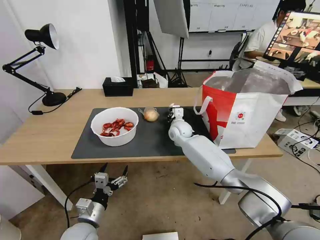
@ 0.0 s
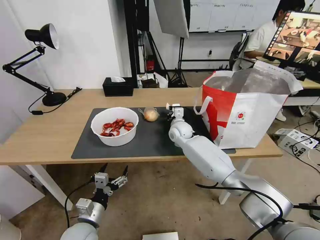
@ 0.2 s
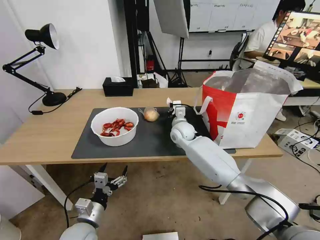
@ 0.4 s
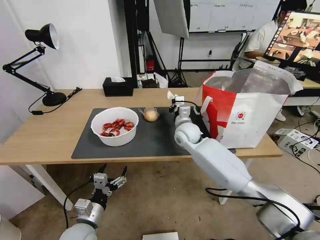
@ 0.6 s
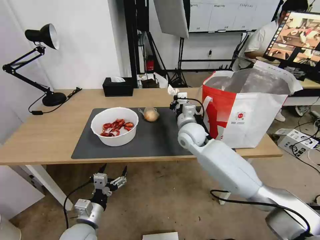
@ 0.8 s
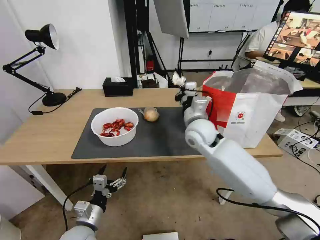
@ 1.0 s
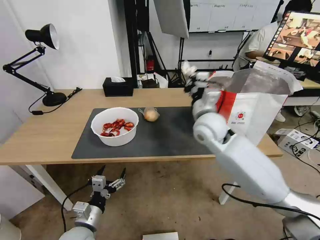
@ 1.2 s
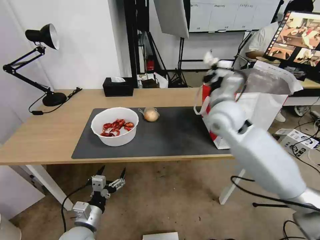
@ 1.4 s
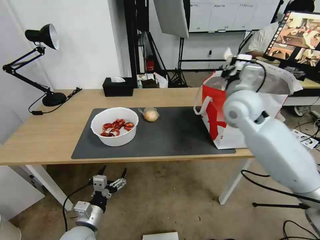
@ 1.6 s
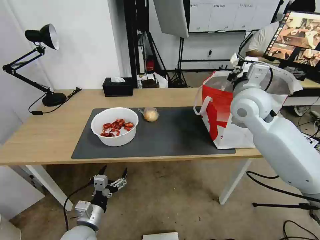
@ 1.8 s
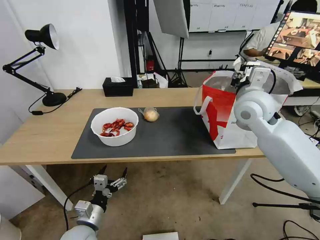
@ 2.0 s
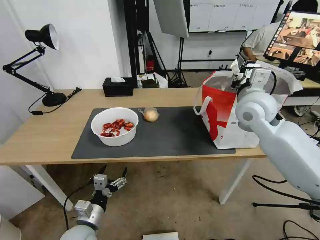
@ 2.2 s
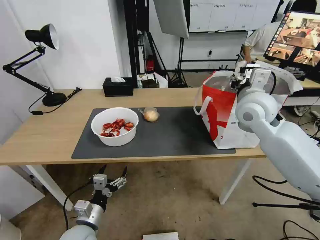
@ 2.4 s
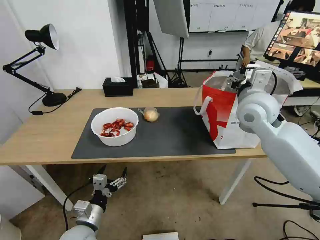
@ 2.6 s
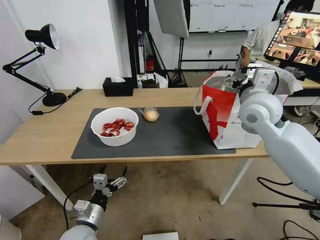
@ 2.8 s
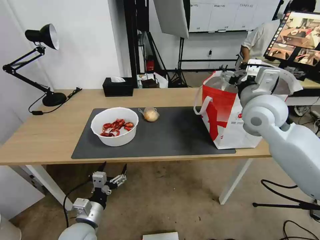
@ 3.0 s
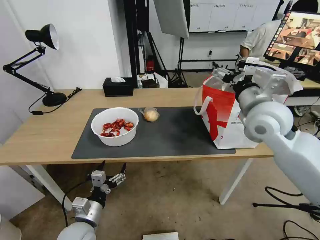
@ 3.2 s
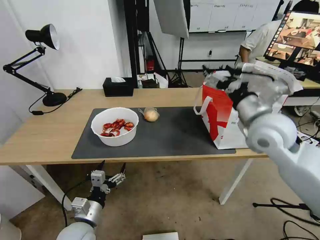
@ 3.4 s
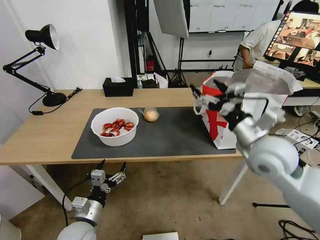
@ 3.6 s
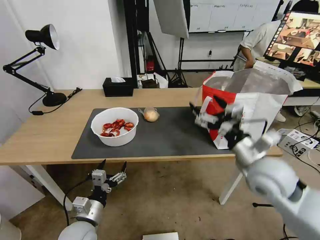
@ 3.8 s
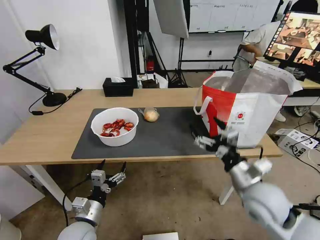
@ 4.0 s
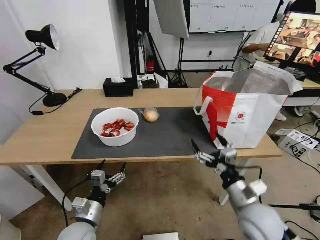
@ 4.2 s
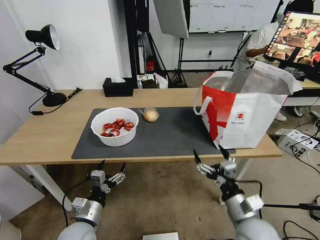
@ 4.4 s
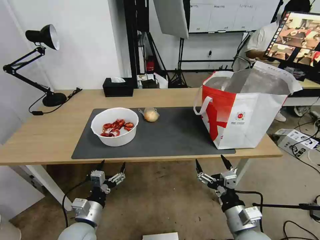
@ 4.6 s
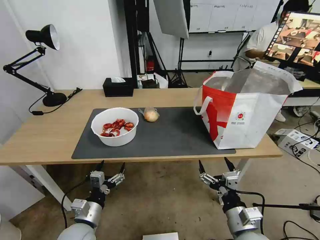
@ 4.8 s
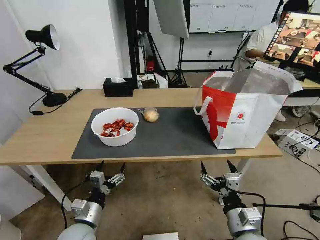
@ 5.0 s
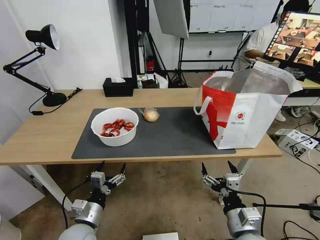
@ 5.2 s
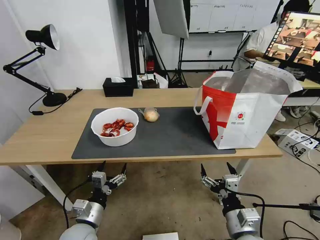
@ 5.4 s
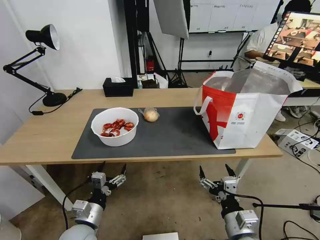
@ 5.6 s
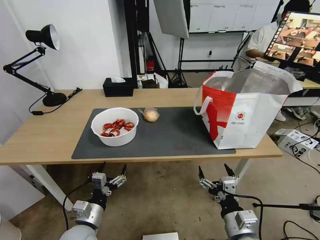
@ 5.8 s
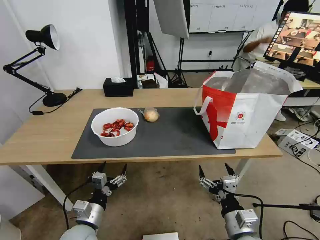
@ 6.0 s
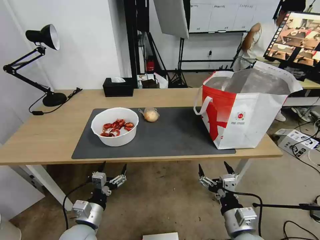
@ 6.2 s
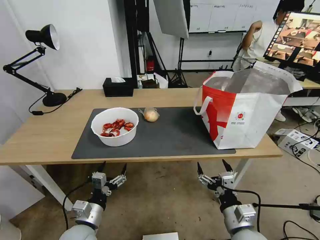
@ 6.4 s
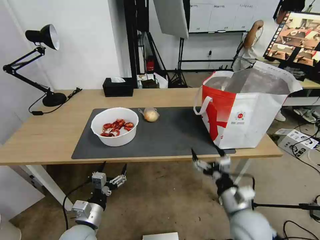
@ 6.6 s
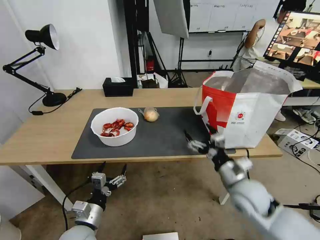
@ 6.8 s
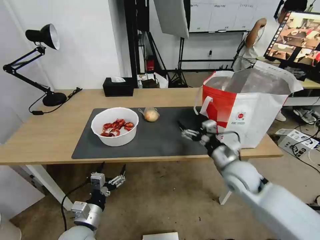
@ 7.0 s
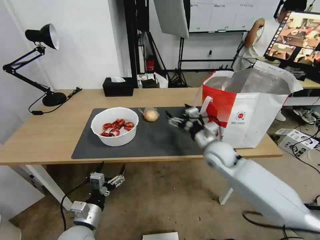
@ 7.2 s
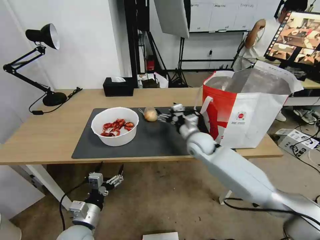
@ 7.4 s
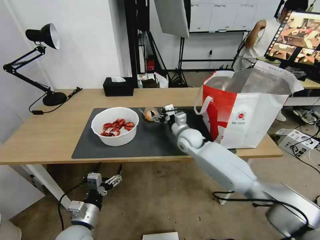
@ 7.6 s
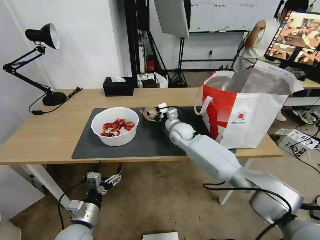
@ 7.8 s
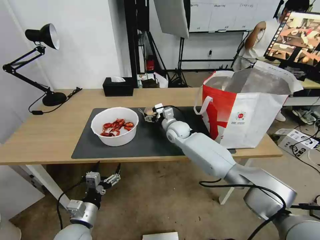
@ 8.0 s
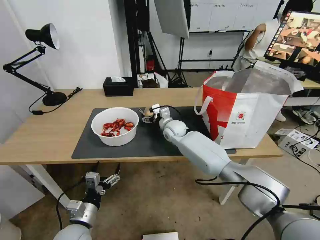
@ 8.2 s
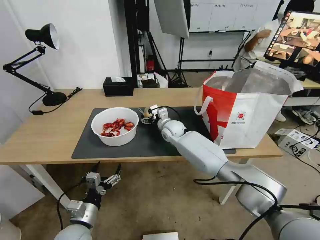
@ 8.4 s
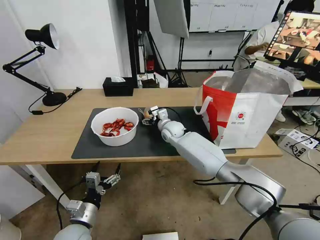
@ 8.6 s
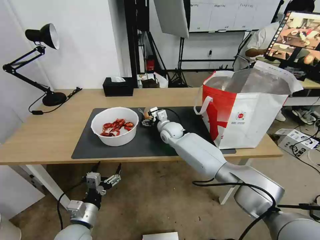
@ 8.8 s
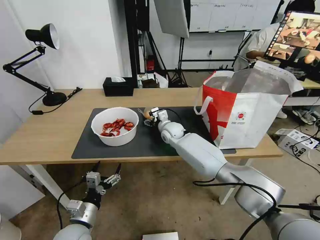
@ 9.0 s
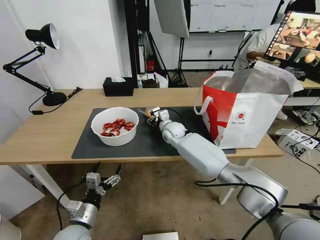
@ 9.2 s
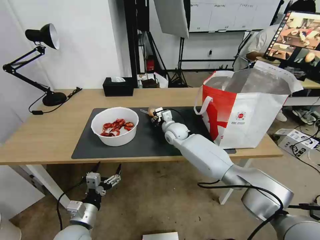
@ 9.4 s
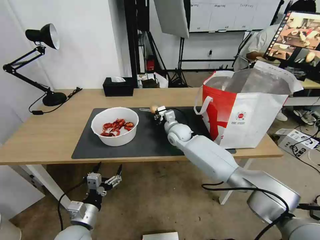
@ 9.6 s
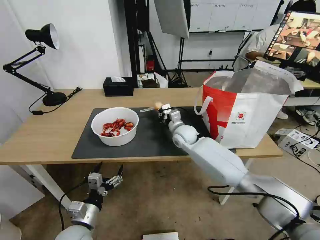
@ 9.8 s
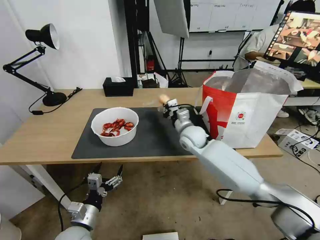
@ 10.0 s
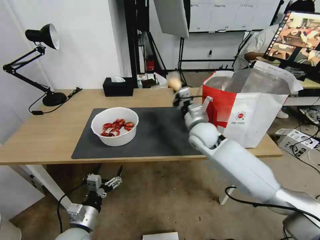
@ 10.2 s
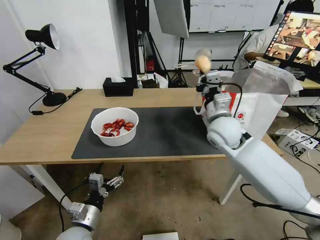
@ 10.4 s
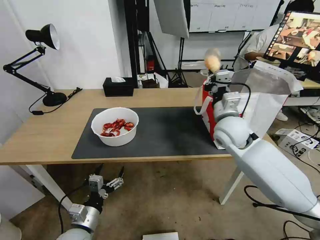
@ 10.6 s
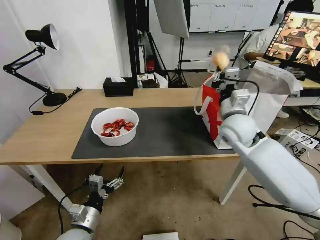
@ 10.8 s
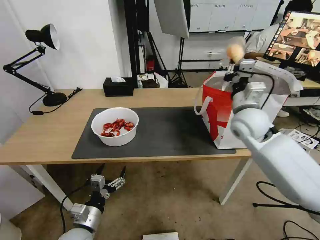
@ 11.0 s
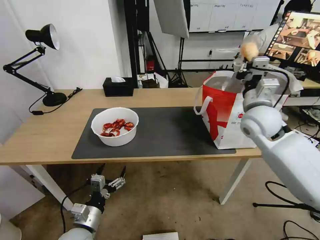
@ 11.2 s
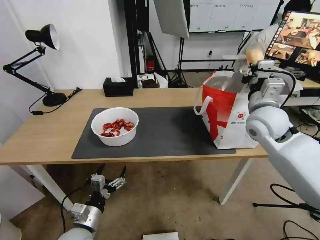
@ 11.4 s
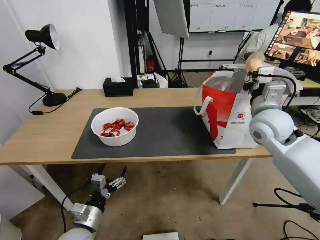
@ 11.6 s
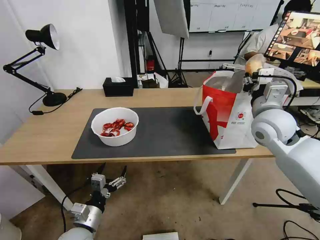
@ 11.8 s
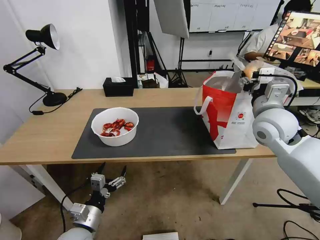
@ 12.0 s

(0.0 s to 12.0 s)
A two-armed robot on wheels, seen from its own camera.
Task of the whole recording: Pick up the trash from the table and place it into the takeout bag.
0.0 s - 1.6 s: The right gripper moves upward, to the right and backward, about 30 cm.
1.6 s - 3.0 s: The right gripper opens up.
3.0 s - 4.4 s: The right gripper shifts roughly 35 cm backward and downward.
4.4 s - 6.0 s: There are only small adjustments of the grippers.
6.0 s - 7.6 s: The right gripper goes some 35 cm forward.
7.6 s - 9.0 s: The right gripper is displaced to the left and forward by roughly 10 cm.
9.0 s - 10.4 s: The right gripper travels upward, backward and to the right by roughly 20 cm, and closes up.
10.4 s - 12.0 s: The right gripper shifts approximately 15 cm to the right and upward, and opens up.

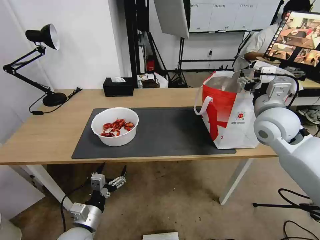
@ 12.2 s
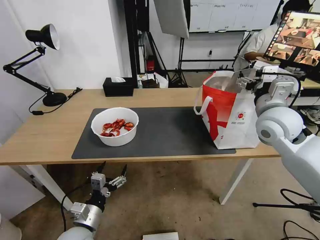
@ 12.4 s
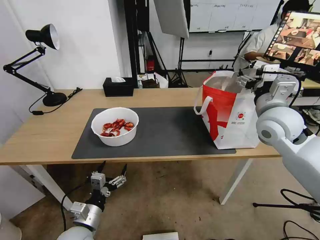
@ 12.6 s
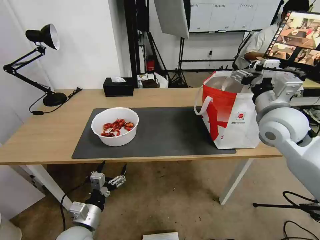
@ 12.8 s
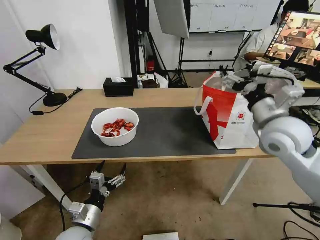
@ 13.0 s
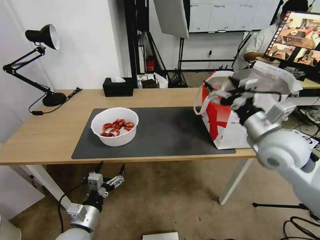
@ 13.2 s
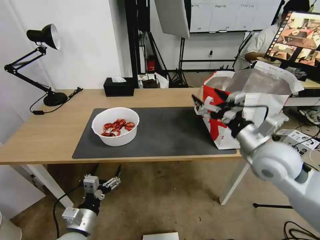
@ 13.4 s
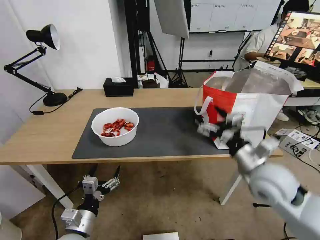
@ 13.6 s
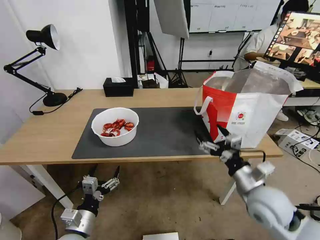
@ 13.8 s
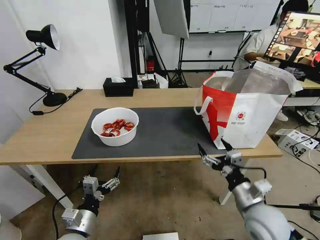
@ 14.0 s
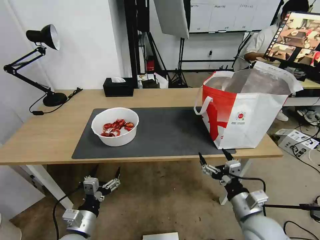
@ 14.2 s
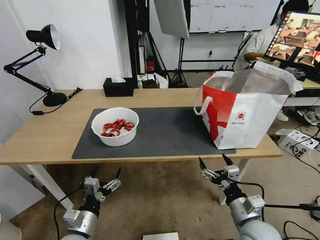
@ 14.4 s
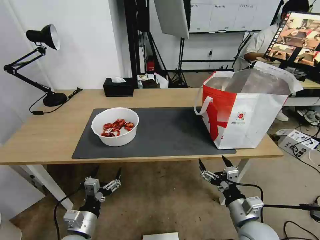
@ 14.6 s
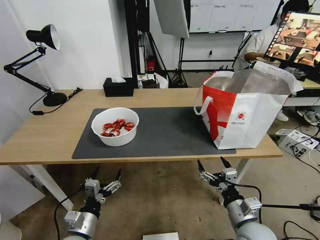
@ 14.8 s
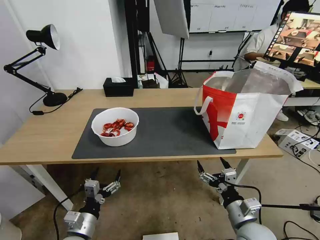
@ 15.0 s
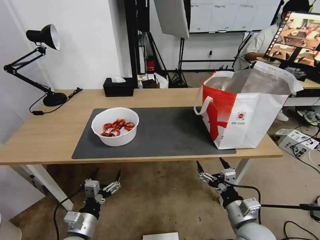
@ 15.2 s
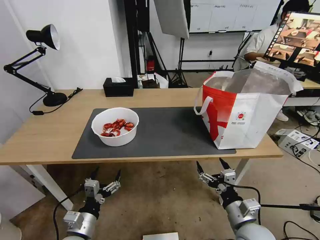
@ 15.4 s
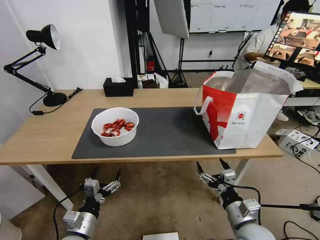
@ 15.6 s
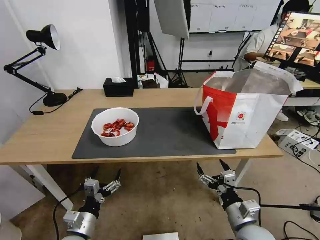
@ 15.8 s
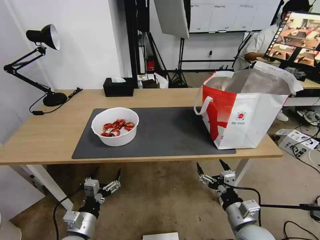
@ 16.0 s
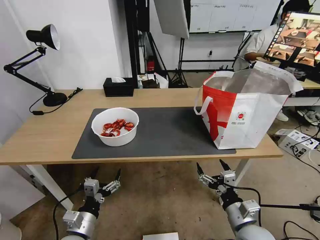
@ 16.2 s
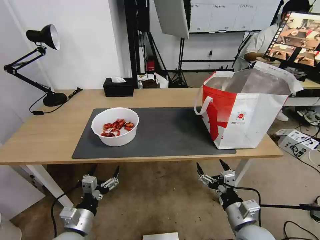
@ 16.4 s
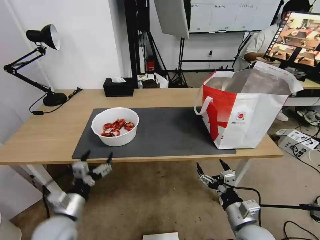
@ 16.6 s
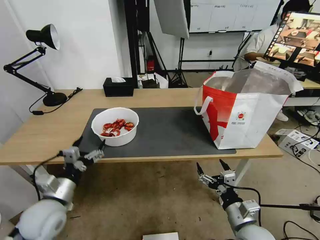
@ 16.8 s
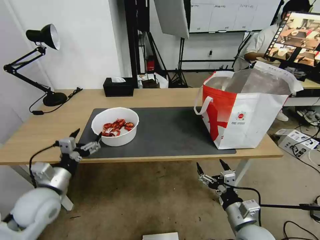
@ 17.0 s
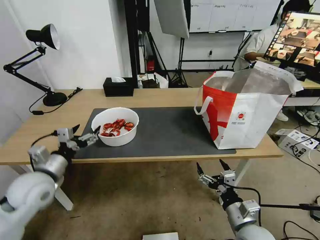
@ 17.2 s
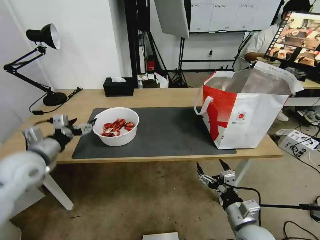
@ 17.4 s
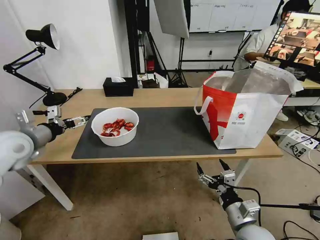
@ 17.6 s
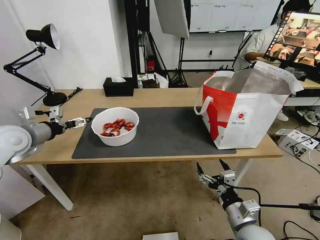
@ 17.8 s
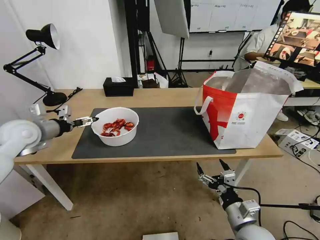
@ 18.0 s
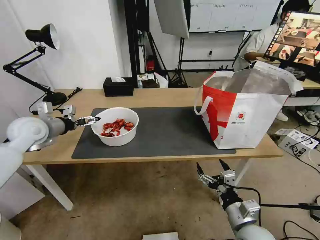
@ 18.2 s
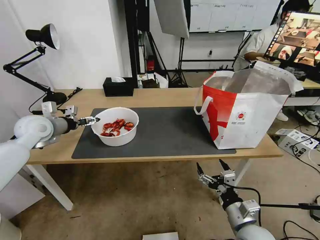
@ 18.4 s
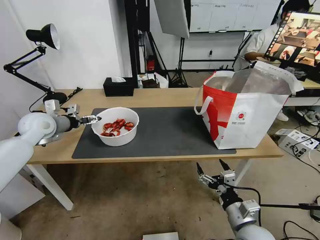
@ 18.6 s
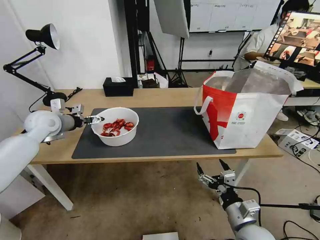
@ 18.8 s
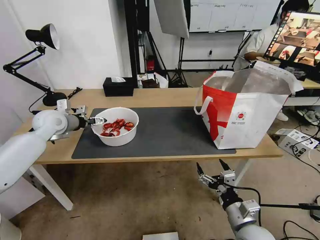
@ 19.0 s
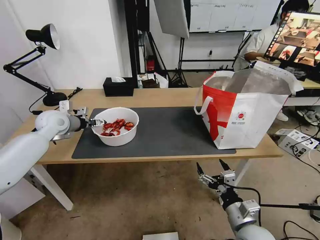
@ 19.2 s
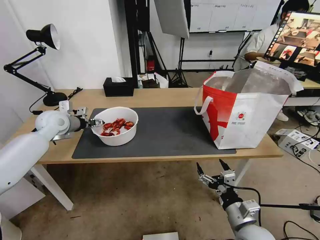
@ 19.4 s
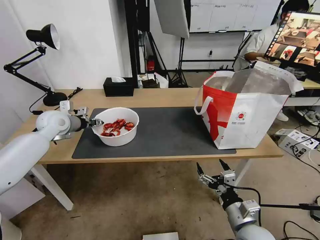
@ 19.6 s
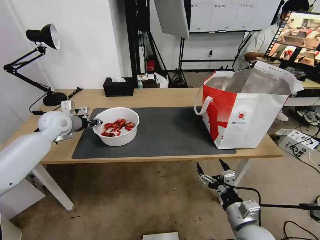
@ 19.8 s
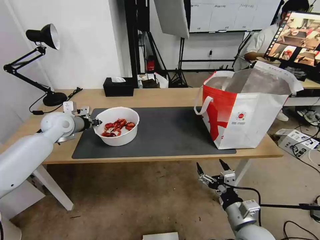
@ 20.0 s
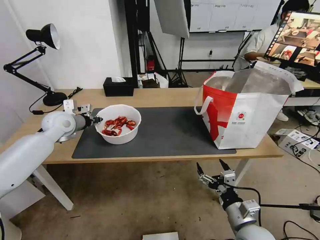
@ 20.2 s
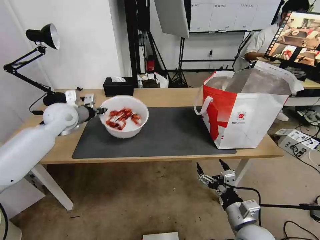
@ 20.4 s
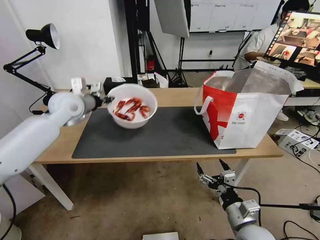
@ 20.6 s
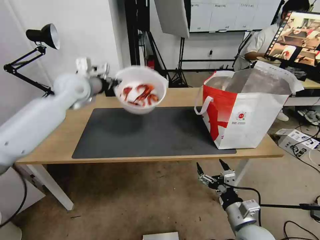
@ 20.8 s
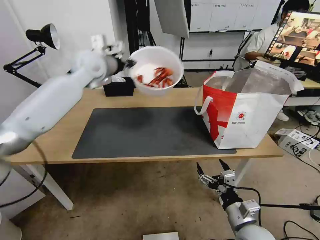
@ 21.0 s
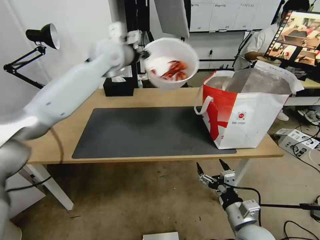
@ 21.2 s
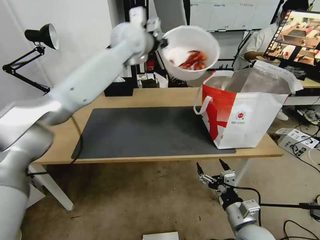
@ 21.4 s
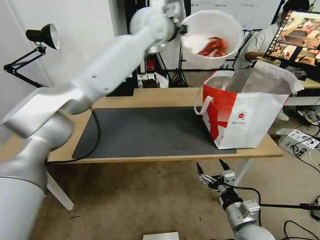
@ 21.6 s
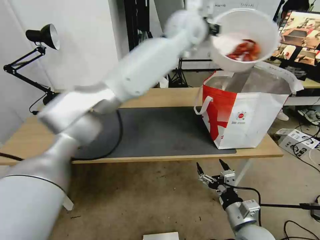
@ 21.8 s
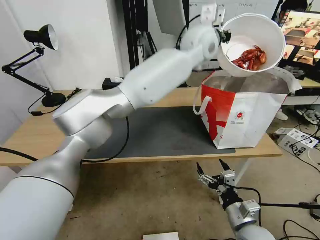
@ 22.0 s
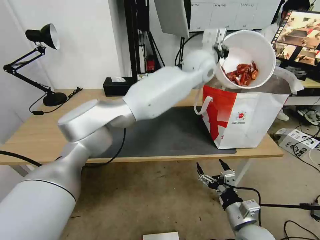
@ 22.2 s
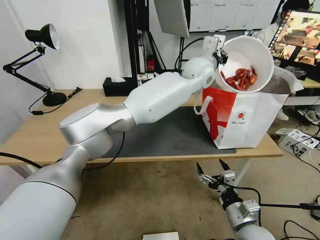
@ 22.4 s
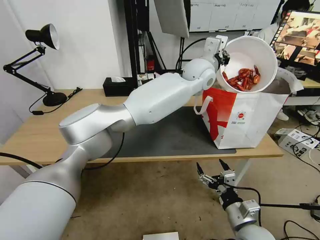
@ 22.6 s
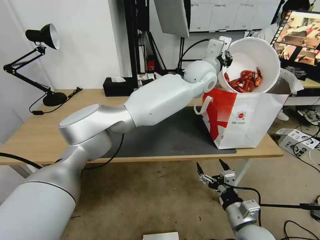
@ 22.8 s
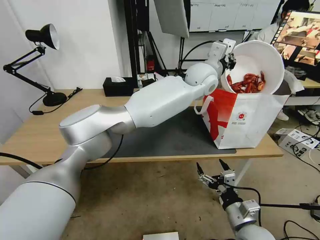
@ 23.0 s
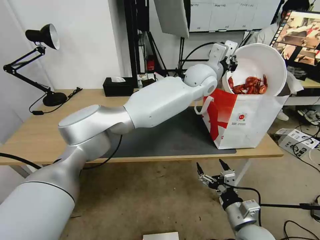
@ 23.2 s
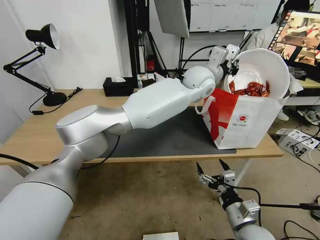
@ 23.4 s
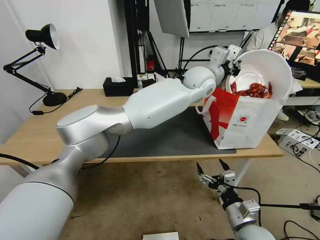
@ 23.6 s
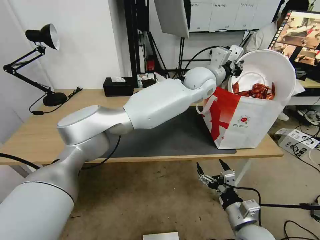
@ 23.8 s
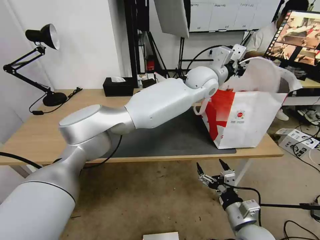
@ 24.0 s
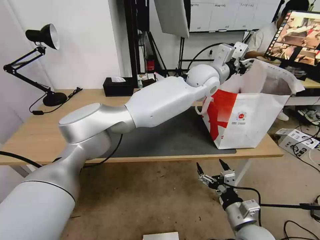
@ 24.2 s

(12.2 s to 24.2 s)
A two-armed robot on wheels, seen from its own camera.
Task of the whole recording: Pick up the trash from the table and place it into the takeout bag.
12.2 s - 13.8 s: The right gripper is displaced backward and downward by about 20 cm.
13.8 s - 15.2 s: The right gripper goes roughly 10 cm downward and backward.
15.2 s - 16.6 s: The left gripper travels upward by roughly 5 cm.
16.6 s - 18.2 s: The left gripper shifts approximately 30 cm forward, upward and to the left.
18.2 s - 19.8 s: The left gripper travels forward by roughly 5 cm, and closes its fingers.
19.8 s - 21.2 s: The left gripper travels upward and to the right by some 25 cm.
21.2 s - 22.6 s: The left gripper travels to the right by roughly 30 cm.
22.6 s - 24.2 s: The left gripper opens up.
